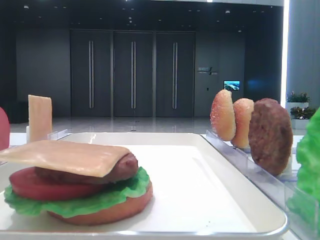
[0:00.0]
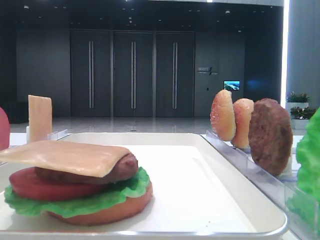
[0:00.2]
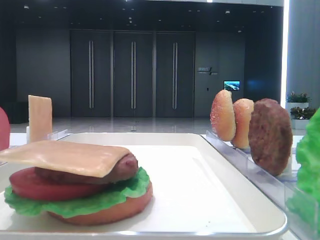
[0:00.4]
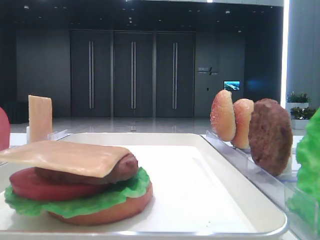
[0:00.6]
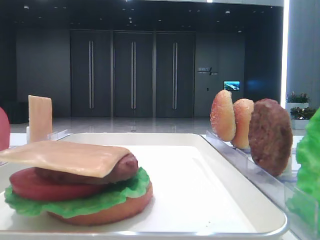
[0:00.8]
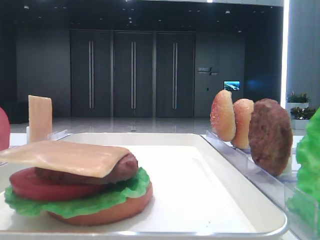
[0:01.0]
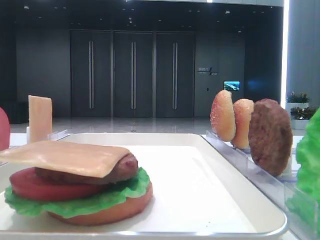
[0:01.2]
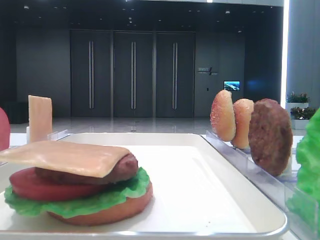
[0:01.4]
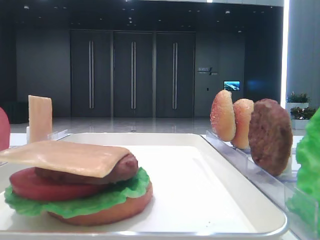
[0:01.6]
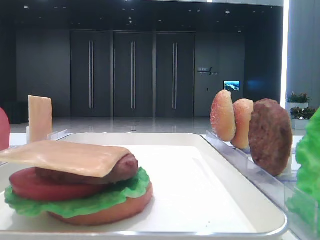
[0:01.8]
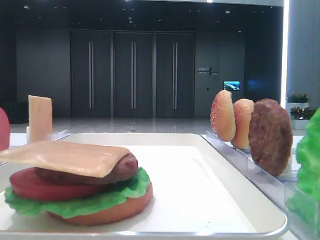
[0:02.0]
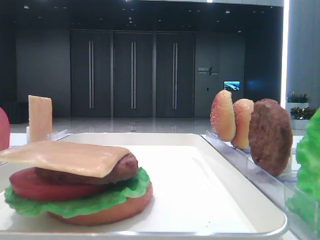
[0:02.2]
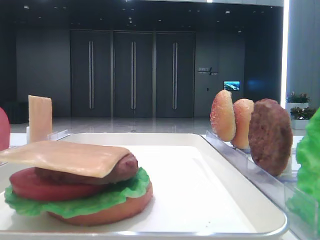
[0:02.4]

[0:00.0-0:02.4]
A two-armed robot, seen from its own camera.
0:01.2 to 0:02.4: Neither gripper changes place.
